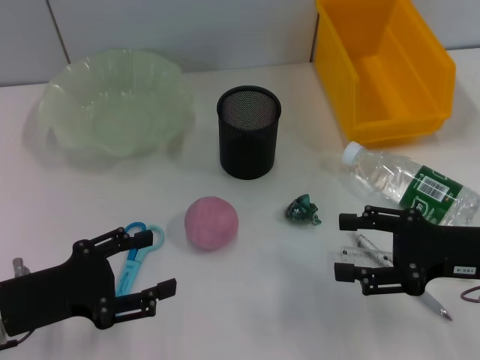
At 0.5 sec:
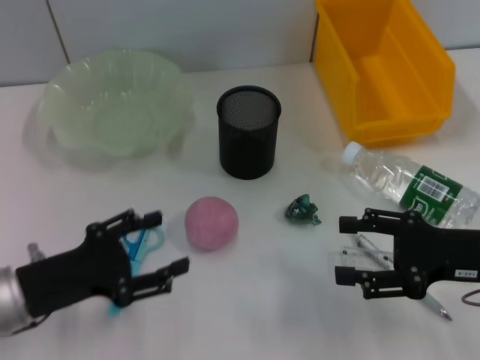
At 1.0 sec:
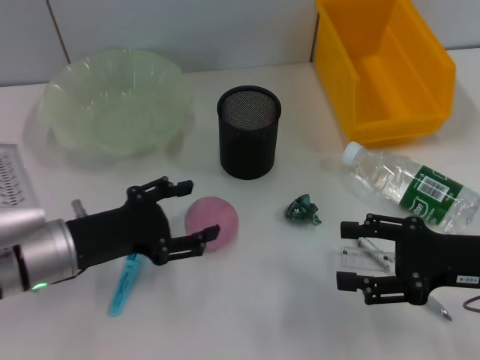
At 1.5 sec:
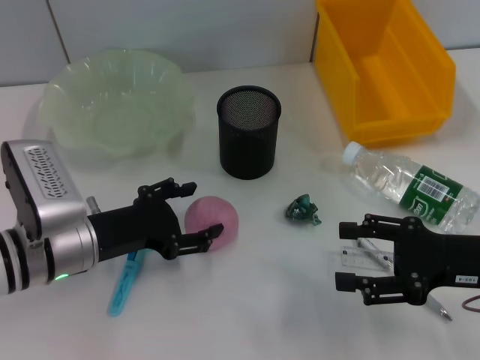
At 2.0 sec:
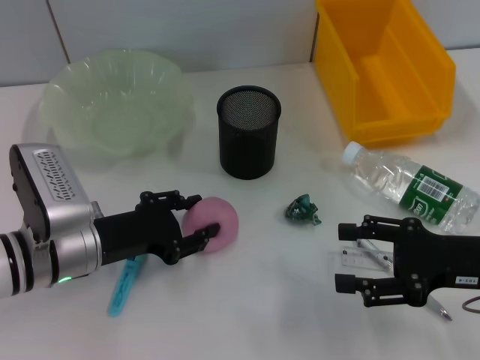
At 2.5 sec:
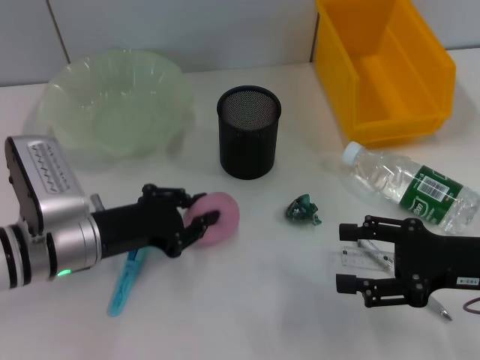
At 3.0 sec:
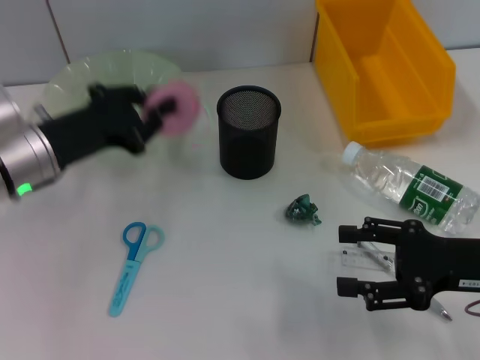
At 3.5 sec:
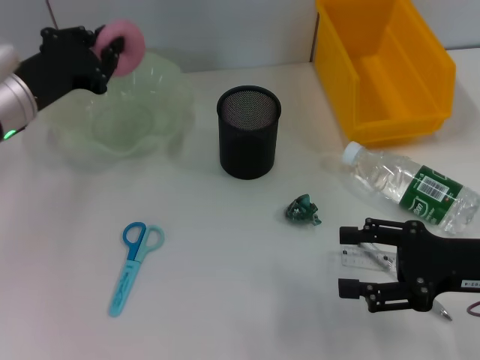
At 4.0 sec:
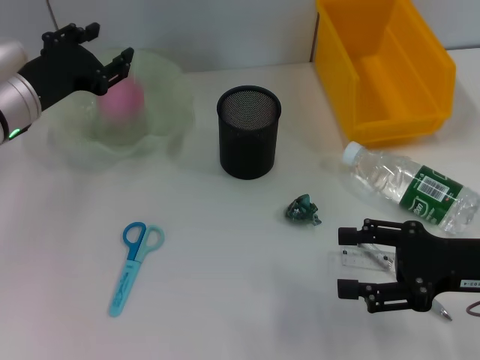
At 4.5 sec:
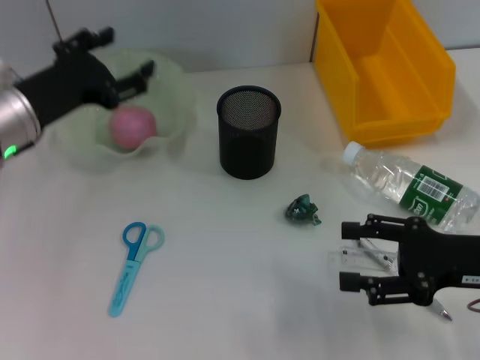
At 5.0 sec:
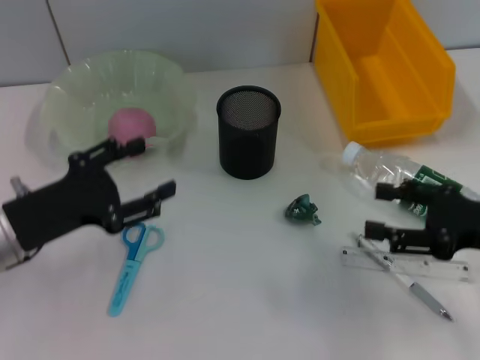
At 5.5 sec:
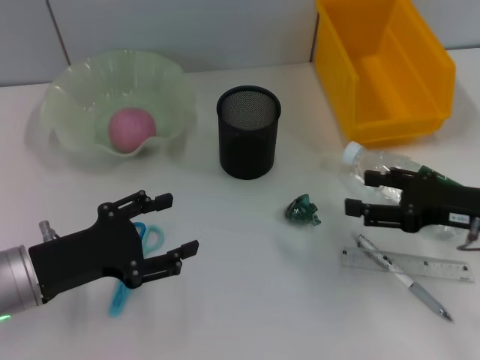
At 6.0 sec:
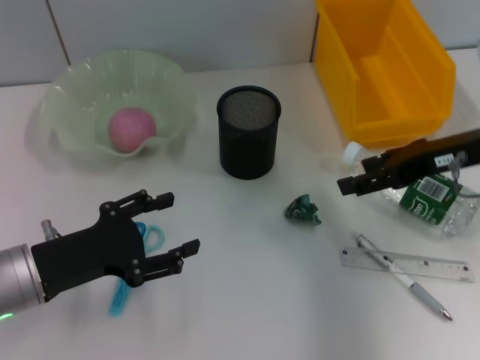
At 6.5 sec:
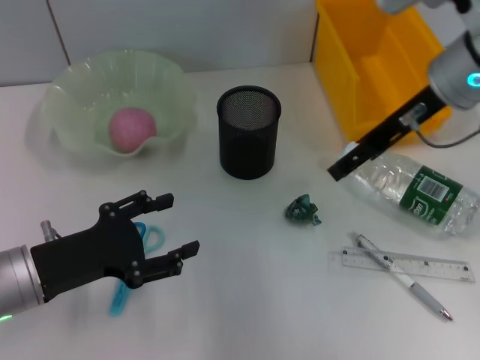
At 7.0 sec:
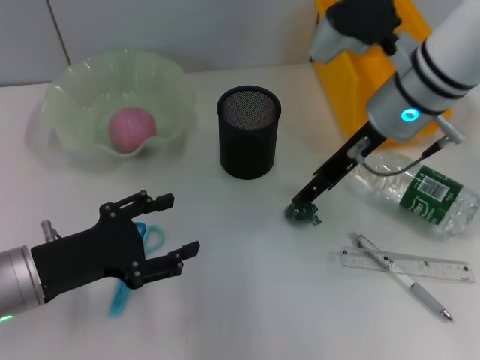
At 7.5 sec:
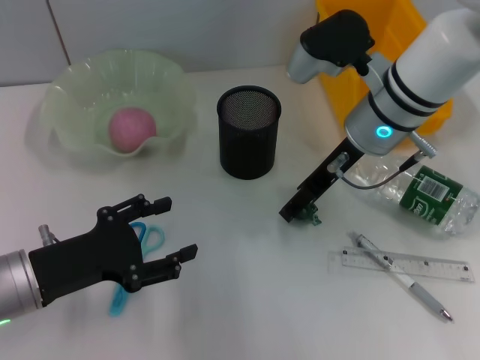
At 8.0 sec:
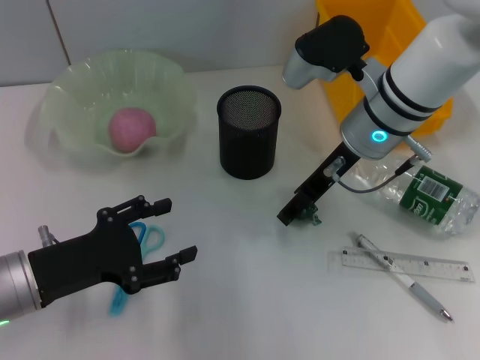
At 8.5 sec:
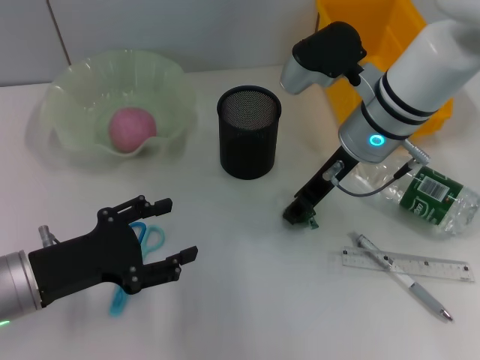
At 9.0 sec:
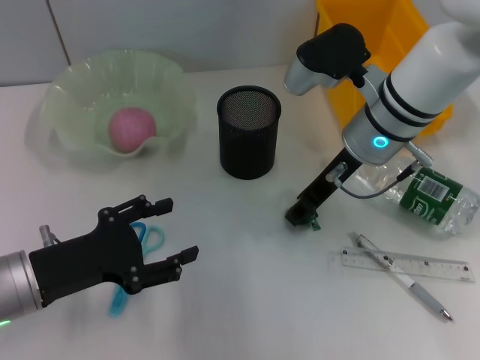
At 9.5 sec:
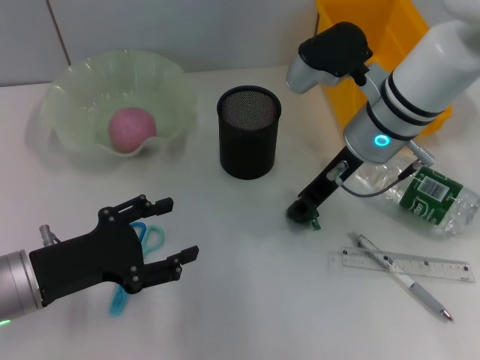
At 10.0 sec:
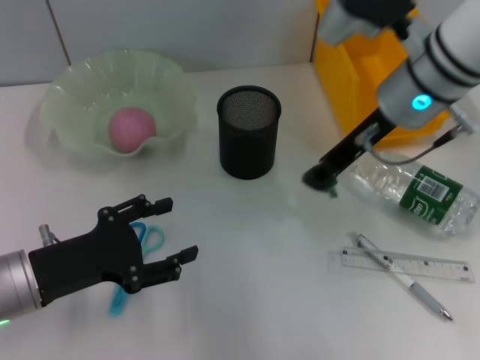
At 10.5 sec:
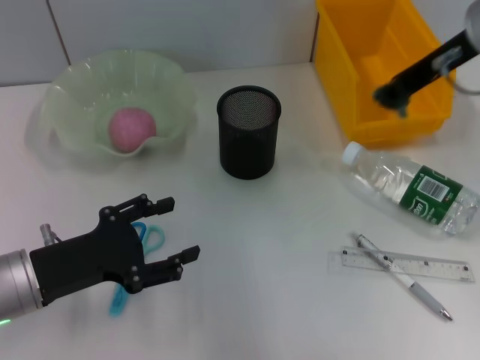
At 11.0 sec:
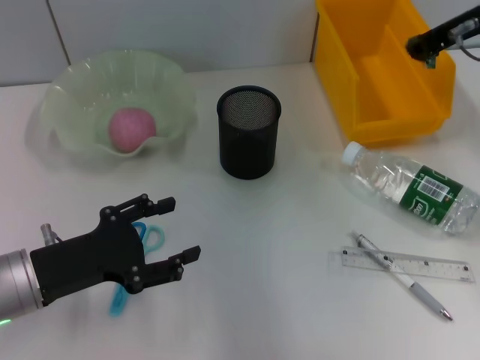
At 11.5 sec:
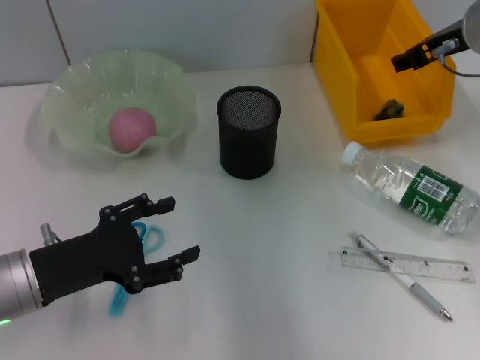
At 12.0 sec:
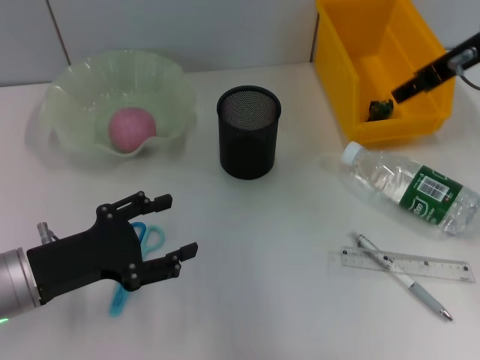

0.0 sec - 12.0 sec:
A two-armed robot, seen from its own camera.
Step, 0.0 sec - 2.0 sec: Grab the peach with the left hand.
Step, 2.5 sec - 4.0 sec: Place the peach into the fruit bowl with the left hand.
Step, 4.5 sec - 8.5 sec: Grab the plastic with the right hand.
Step, 9.0 sec - 11.5 sec: Place the plastic into the trash can with the right hand.
0.0 sec - 2.0 sec: The left gripper heads to the right and forward, covering about 10 cm.
2.0 sec - 4.0 sec: The left gripper is displaced forward and upward by roughly 15 cm, and closes up.
4.0 sec - 6.0 sec: The right gripper moves forward and upward, about 10 cm, while the left gripper heads backward and downward, covering approximately 15 cm, and opens.
6.0 sec - 8.0 sec: The right gripper is displaced to the left and forward by some 15 cm.
8.0 sec - 10.0 sec: The right gripper shifts by roughly 5 cm, and closes its fingers.
10.0 sec - 12.0 sec: The right gripper heads to the right, covering approximately 10 cm, and opens.

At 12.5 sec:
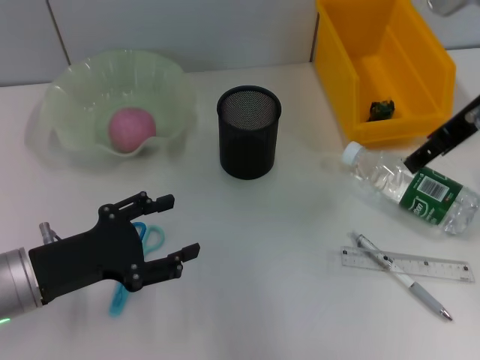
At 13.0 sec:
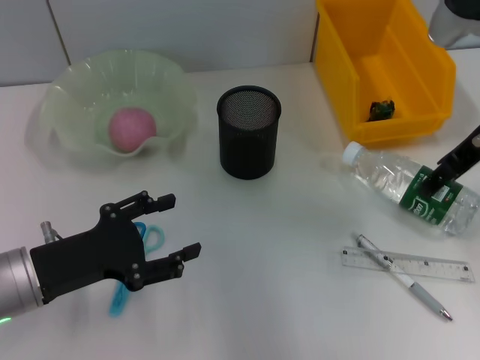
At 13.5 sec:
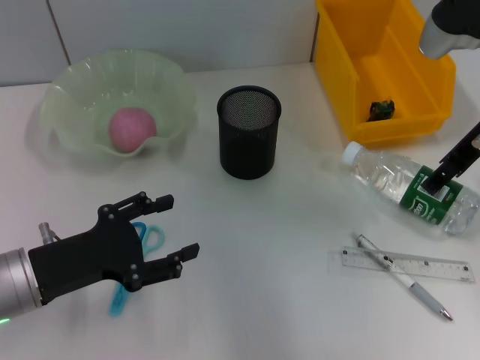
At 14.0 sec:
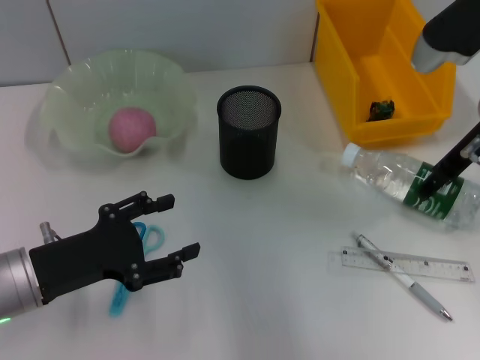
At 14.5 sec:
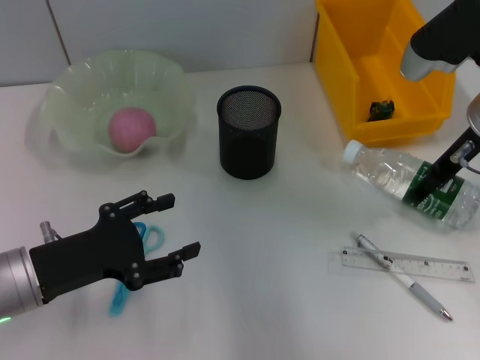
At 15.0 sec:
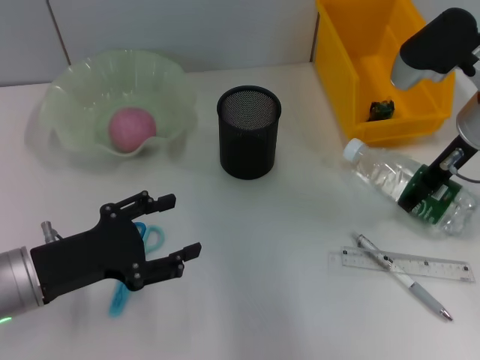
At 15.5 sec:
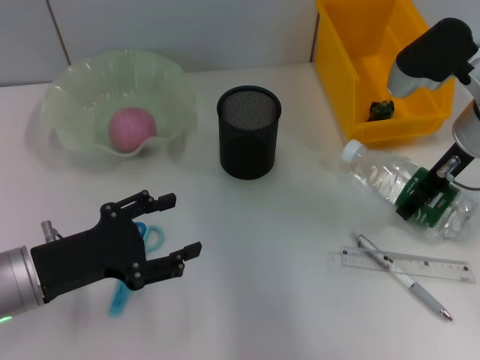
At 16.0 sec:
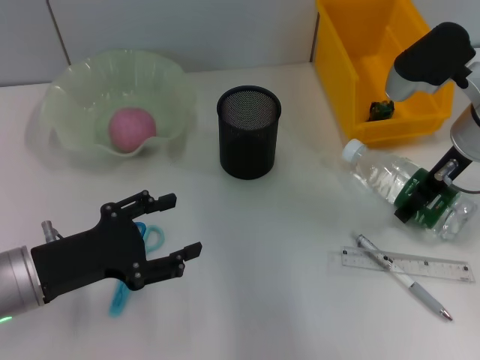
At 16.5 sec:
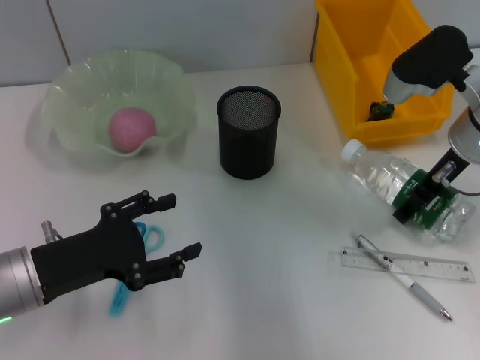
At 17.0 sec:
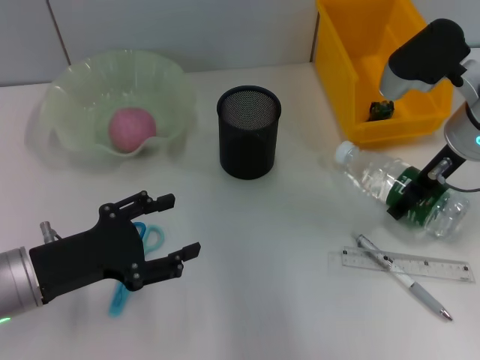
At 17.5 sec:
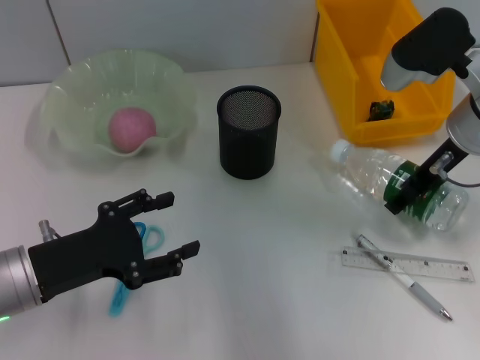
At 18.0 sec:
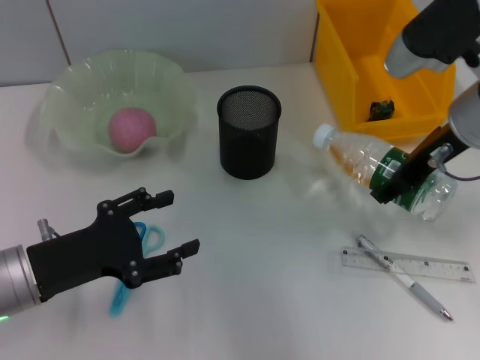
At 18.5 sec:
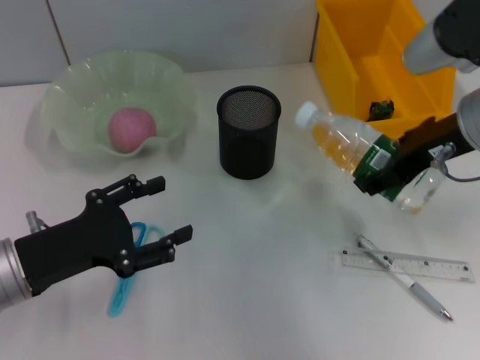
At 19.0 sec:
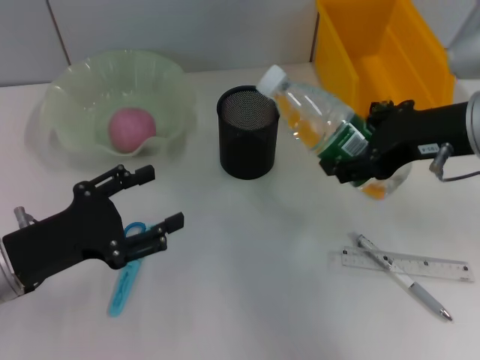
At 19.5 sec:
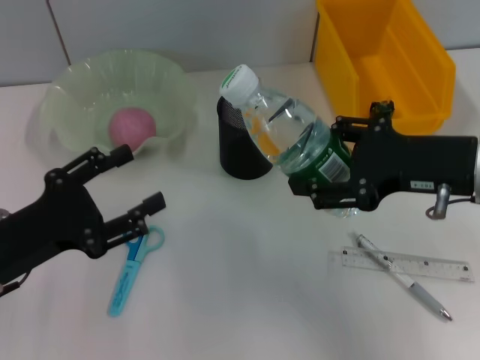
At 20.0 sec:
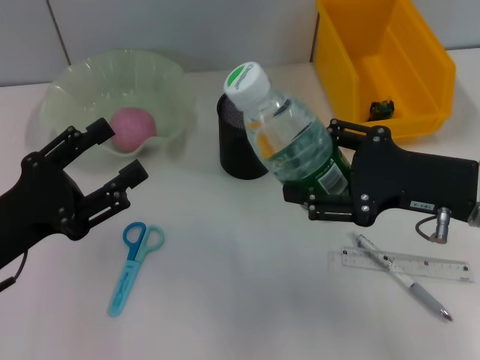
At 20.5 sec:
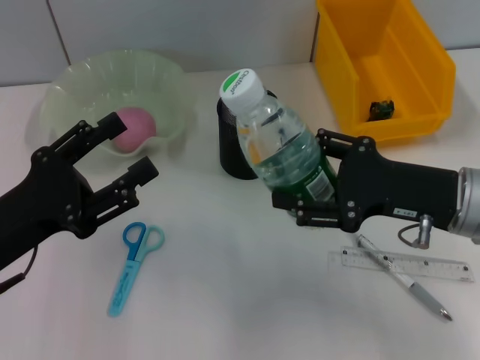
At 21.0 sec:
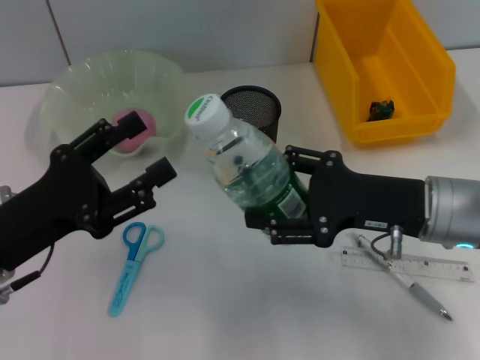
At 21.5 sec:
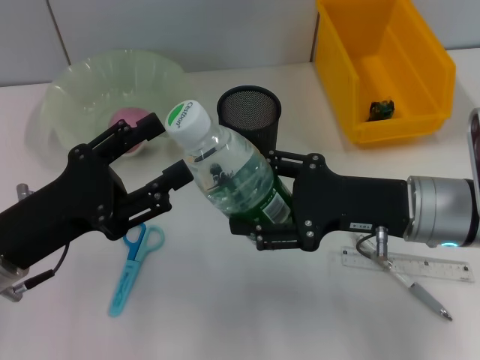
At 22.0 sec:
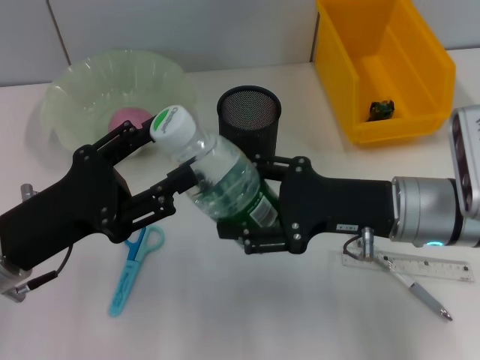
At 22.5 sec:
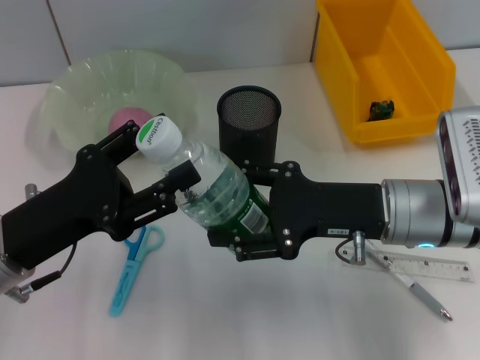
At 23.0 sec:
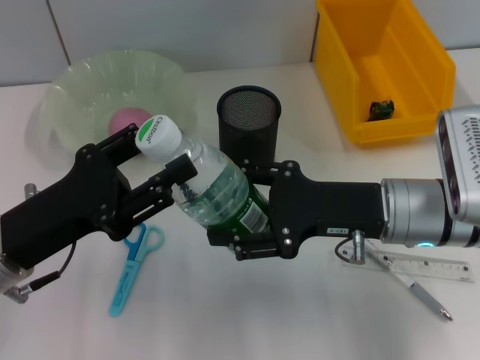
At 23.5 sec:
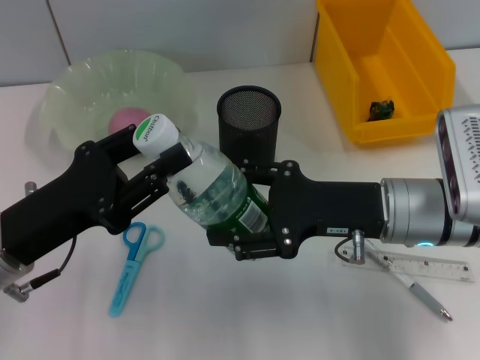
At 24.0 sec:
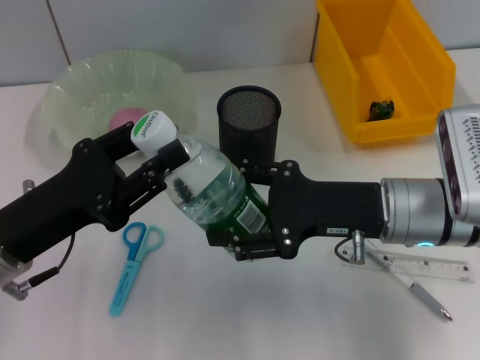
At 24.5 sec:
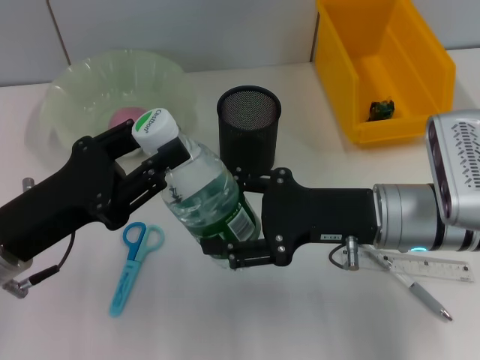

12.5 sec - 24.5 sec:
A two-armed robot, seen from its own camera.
Step, 12.5 sec - 17.0 sec: Grab the water bottle with the right hand.
12.5 sec - 14.5 sec: The right gripper shifts approximately 5 cm downward.
14.5 sec - 16.5 sec: There are only small adjustments of the grippers.
16.5 sec - 18.5 sec: The right gripper travels upward and backward by approximately 10 cm.
18.5 sec - 20.5 sec: The right gripper moves downward and backward, about 10 cm.
20.5 sec - 22.5 sec: The right gripper shifts about 5 cm to the left.
22.5 sec - 24.5 sec: The left gripper closes.

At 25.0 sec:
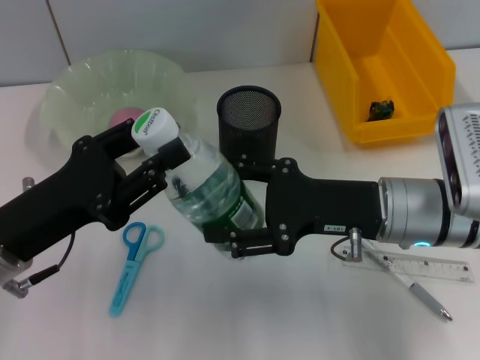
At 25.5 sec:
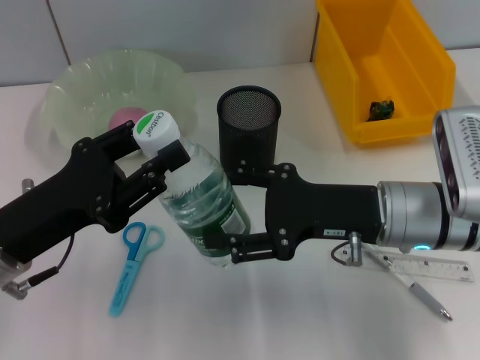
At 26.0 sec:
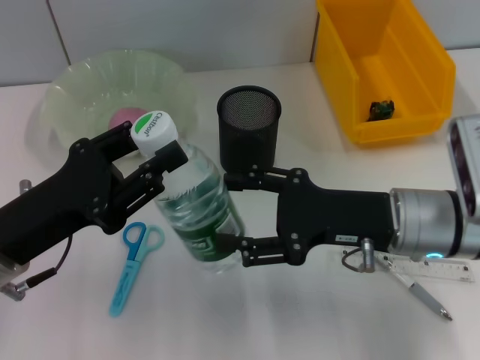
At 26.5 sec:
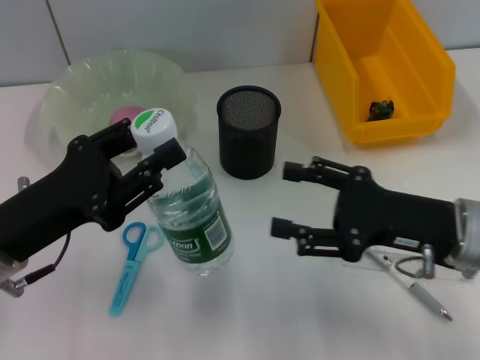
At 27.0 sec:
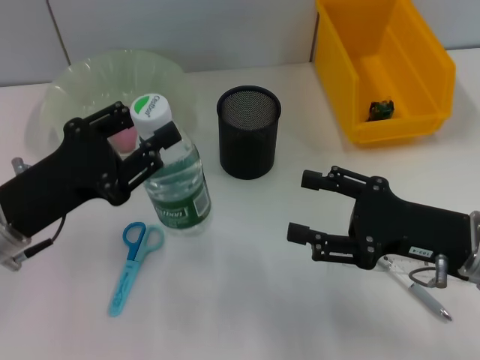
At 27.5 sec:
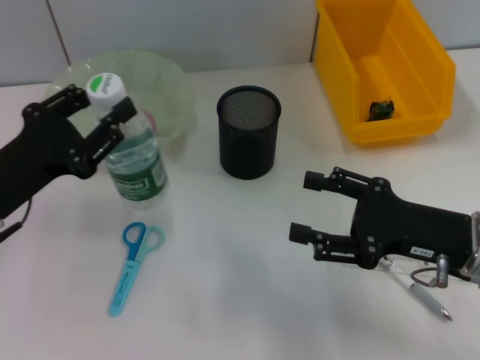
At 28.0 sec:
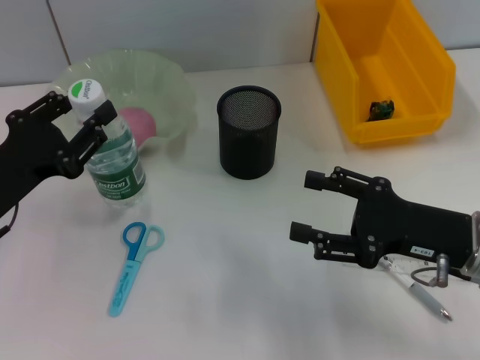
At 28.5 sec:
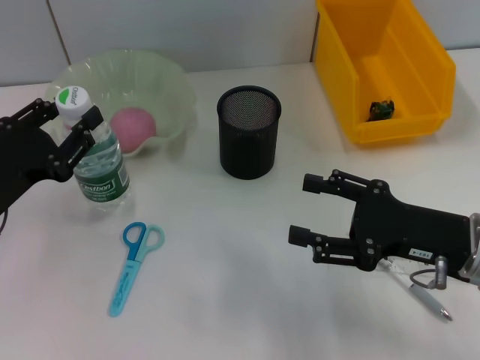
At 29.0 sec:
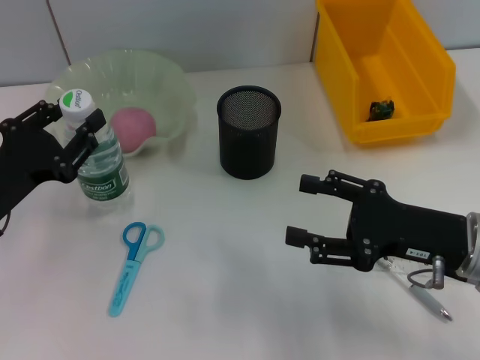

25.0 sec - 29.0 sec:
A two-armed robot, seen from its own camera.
25.0 sec - 27.0 sec: The right gripper shifts approximately 5 cm to the right.
